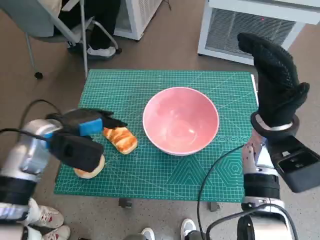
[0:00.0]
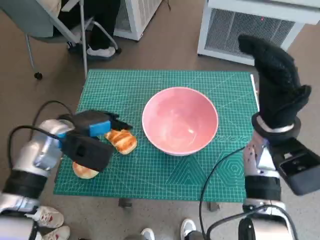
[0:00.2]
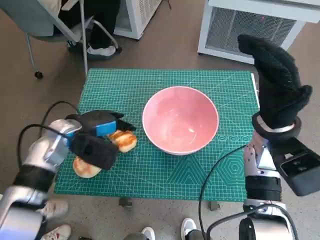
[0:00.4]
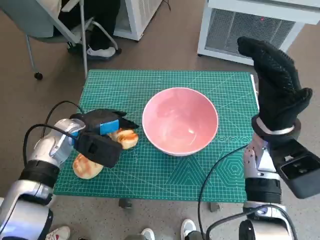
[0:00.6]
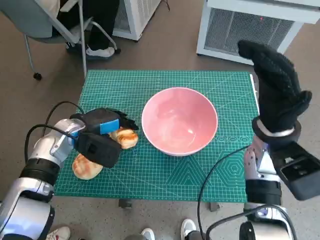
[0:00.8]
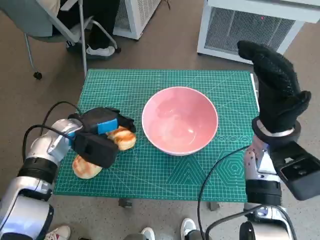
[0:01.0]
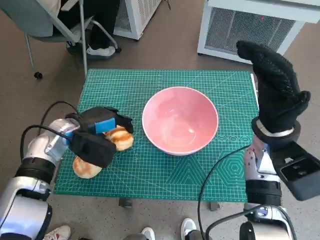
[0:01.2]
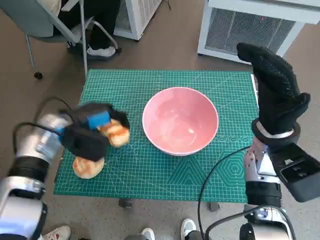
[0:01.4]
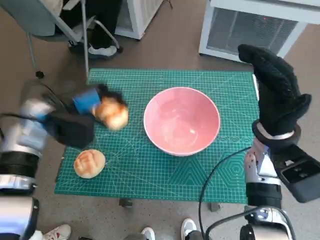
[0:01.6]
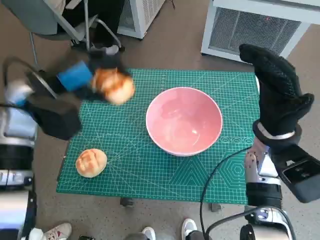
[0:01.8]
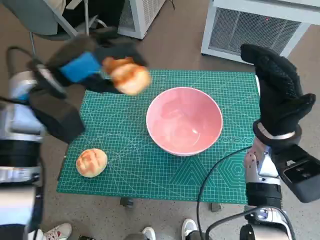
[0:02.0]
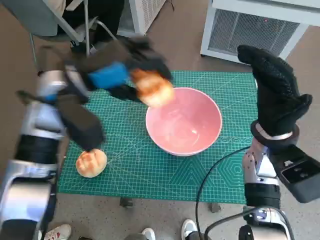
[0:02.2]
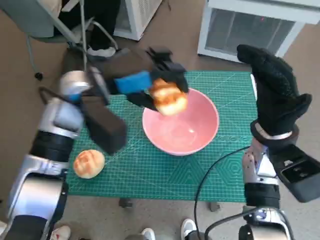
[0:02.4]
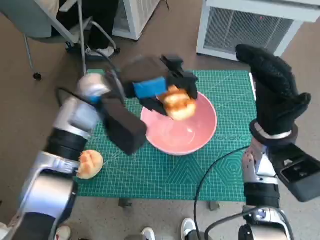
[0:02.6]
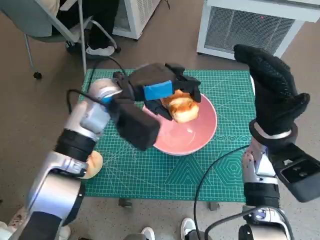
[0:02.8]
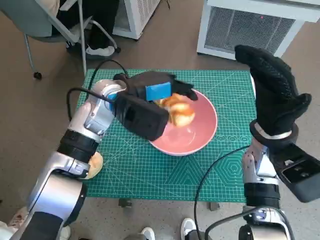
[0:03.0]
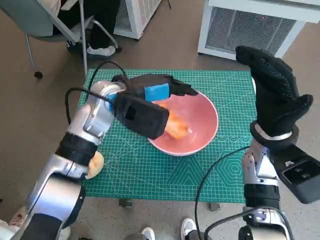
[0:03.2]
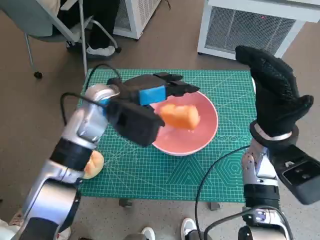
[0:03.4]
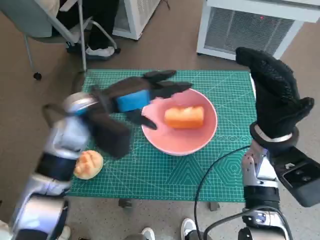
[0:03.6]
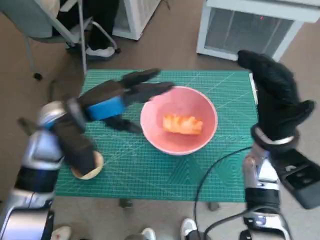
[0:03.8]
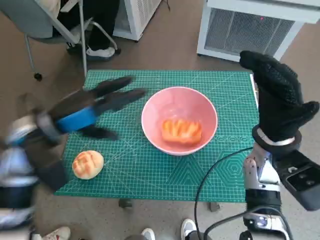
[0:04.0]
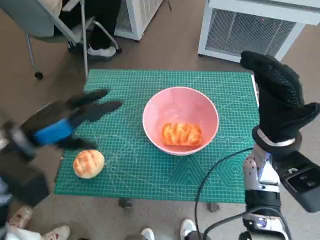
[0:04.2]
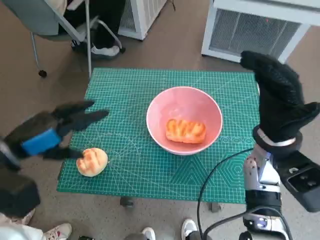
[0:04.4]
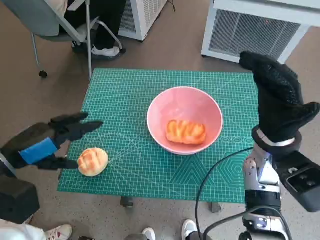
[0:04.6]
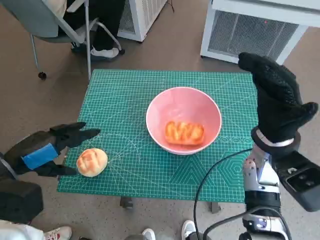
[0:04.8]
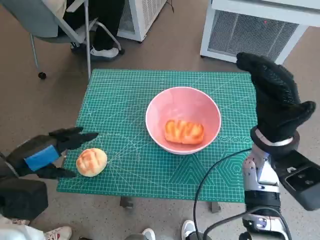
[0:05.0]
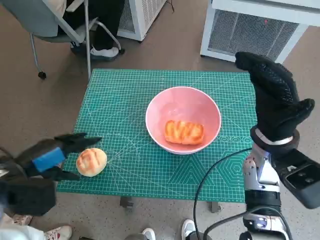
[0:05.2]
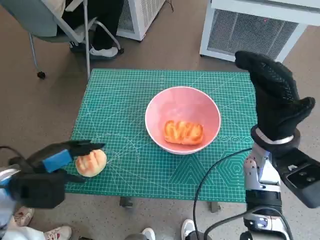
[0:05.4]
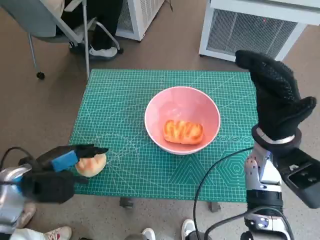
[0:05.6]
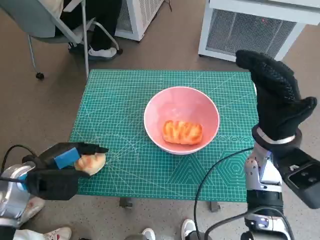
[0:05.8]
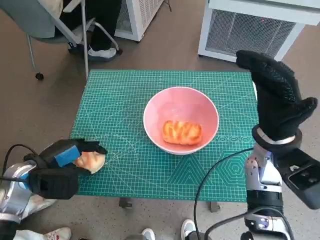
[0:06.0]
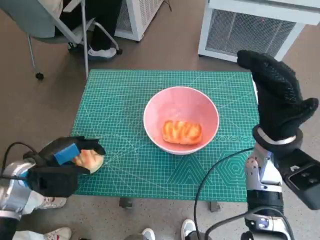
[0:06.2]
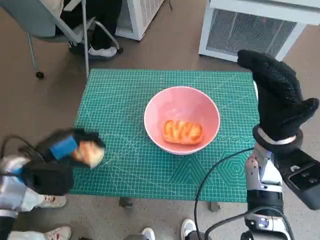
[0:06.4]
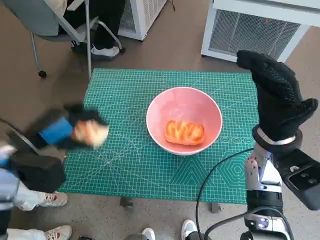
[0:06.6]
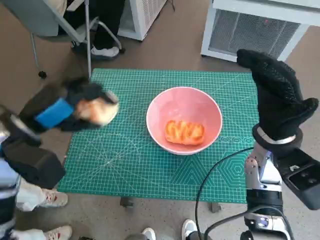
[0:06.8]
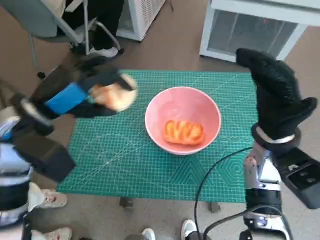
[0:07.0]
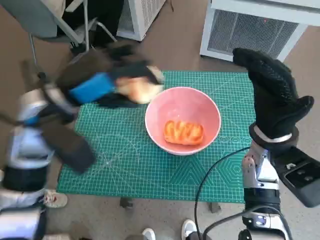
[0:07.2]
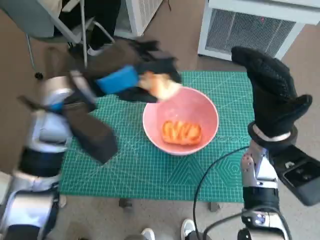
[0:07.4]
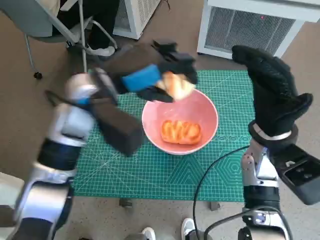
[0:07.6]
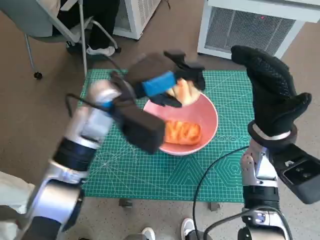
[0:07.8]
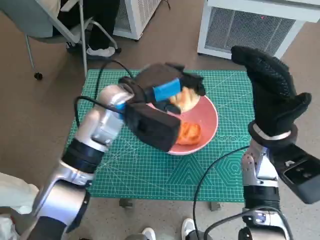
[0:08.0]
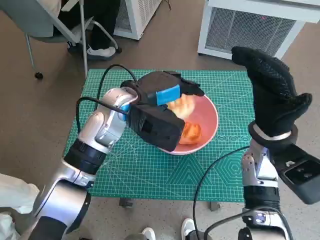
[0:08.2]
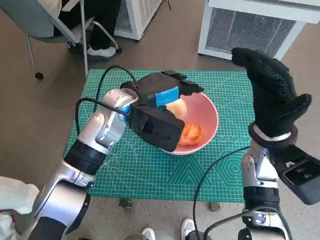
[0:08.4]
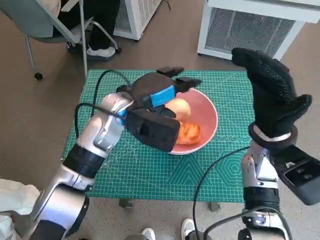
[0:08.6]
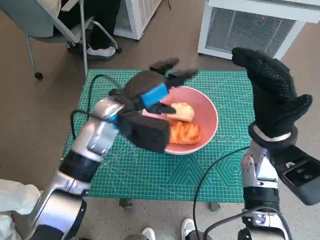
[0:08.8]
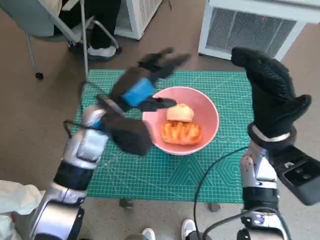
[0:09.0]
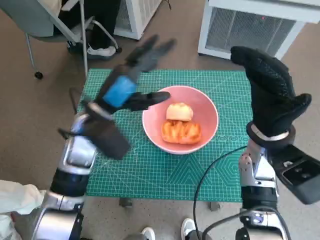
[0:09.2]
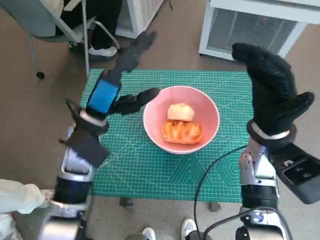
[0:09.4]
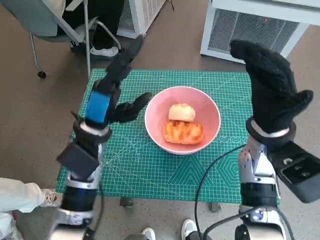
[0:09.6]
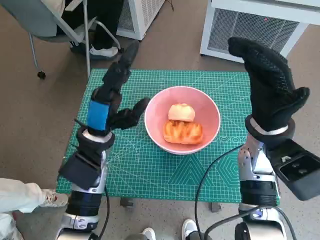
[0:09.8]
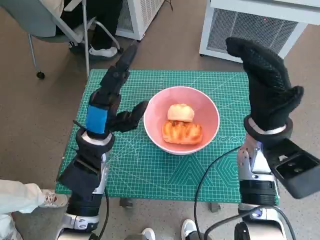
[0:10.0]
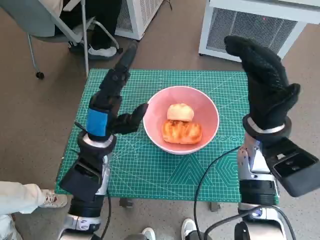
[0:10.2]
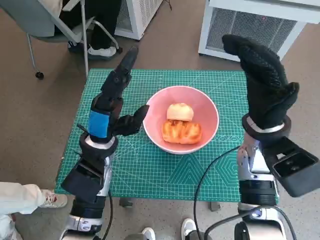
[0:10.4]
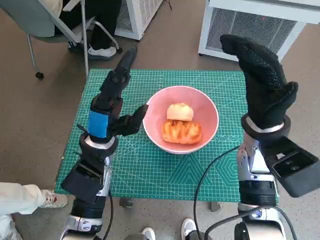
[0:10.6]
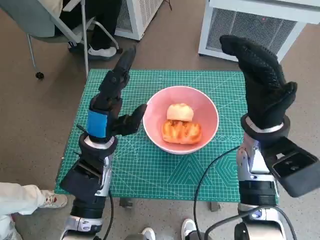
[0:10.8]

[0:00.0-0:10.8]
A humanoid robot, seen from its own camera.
Task of the whole recording: Push the bowl to the center of the table and put the bread into the bowl.
Step, 0:01.2 to 0:03.4: Place the long bread in pink bowl with left hand.
Step, 0:03.6 to 0:06.0: Grasp the round bread with left hand.
Step, 0:06.2 to 0:08.6: Place the round bread in pink bowl with left hand.
0:01.6 to 0:03.0: The left hand travels to the right by some 15 cm.
0:03.0 to 0:04.6: The left hand moves to the left and backward, about 25 cm.
0:04.6 to 0:06.2: The left hand is displaced downward by about 10 cm.
0:06.2 to 0:07.8: The left hand moves to the right, upward and forward, some 25 cm.
0:07.8 to 0:09.2: The left hand ends up some 5 cm from where it was.
0:09.2 to 0:10.8: The left hand shifts roughly 5 cm downward.
